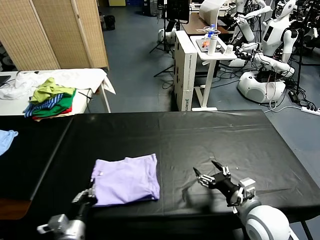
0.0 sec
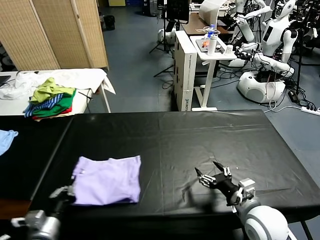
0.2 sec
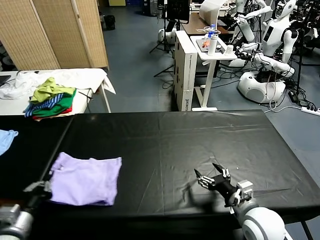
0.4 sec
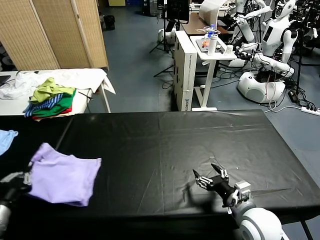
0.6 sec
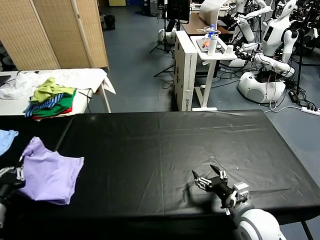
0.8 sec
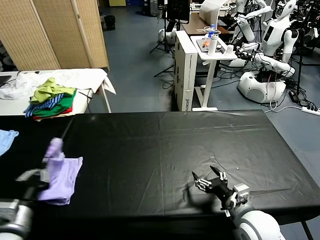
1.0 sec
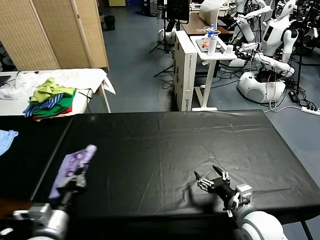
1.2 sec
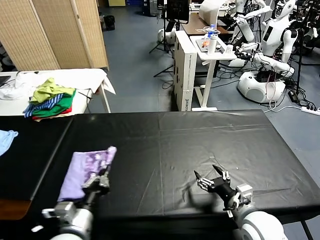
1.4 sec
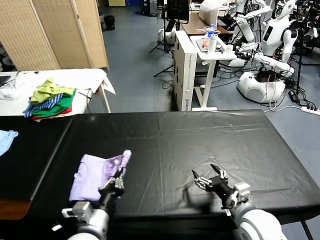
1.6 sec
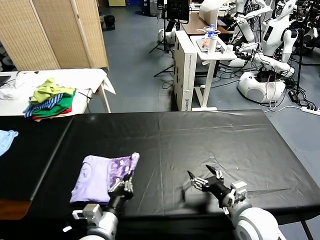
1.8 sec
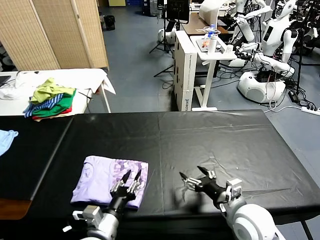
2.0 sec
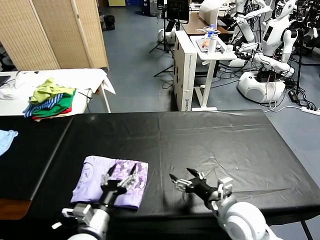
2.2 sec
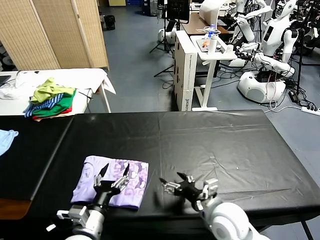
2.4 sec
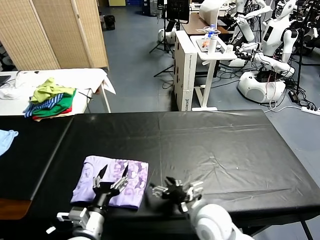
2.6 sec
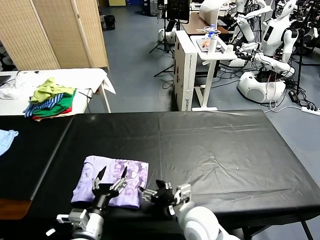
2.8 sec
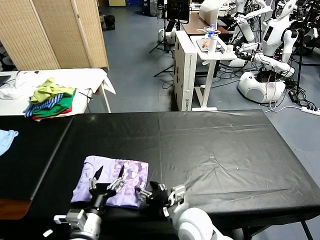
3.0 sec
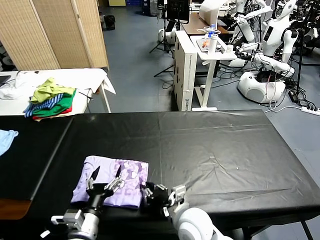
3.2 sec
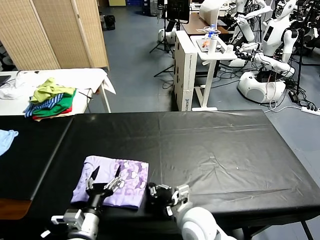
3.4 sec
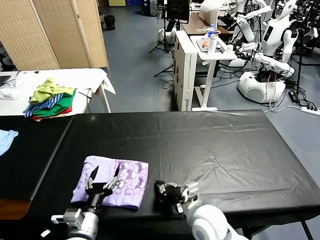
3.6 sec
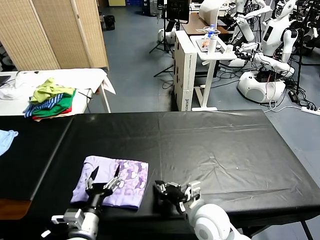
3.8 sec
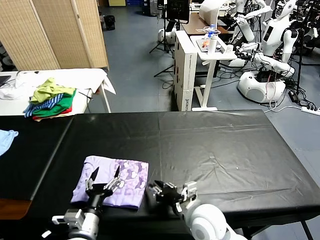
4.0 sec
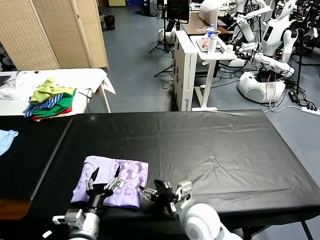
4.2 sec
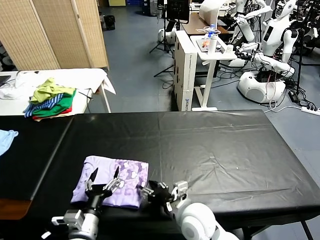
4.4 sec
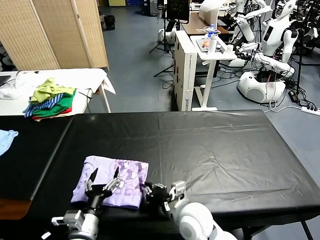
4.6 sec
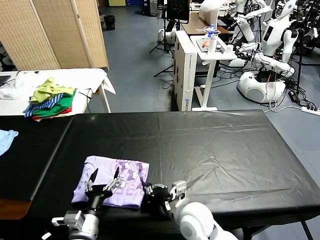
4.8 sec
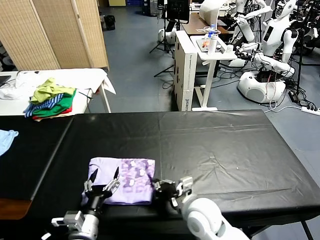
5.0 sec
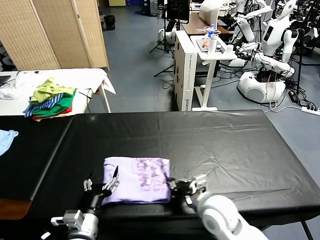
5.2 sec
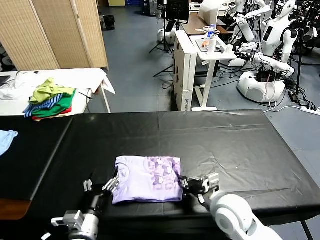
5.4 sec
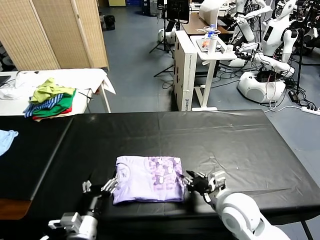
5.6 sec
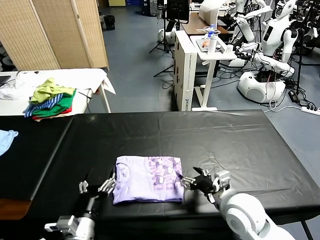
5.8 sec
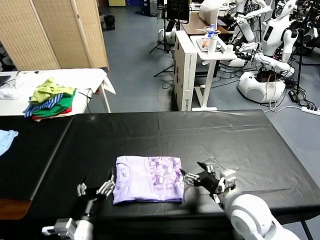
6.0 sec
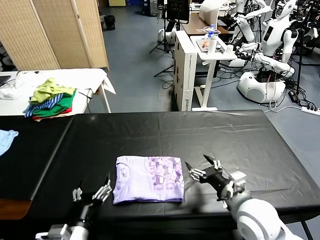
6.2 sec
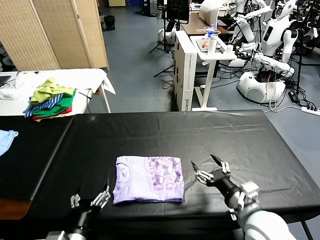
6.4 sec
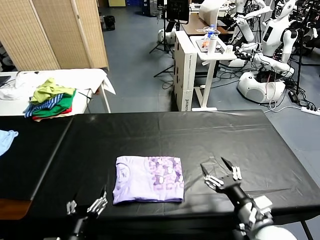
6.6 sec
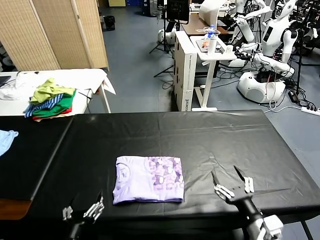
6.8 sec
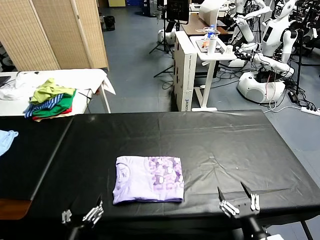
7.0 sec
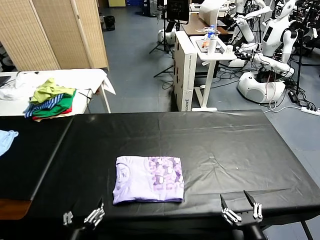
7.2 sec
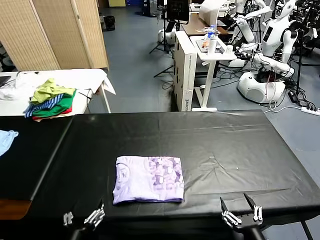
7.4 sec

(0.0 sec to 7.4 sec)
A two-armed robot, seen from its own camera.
Task of the whole recording: fold and organize the clothes.
Step, 0.0 sec - 2.0 sec: Flip the folded clothes over with left gripper.
Step, 2.2 sec - 6.0 sec: Drag the clothes to the center of the table.
0.0 sec - 1.4 sec: The left gripper is displaced upward by roughly 10 cm, and travels to the left and back again, roughly 20 cm each way.
1.4 sec - 3.0 sec: The right gripper is displaced to the left by about 15 cm. Meanwhile the left gripper moves some 5 cm, and opens its fingers.
3.0 sec - 4.4 sec: The right gripper closes, then reopens.
4.4 sec - 6.0 sec: The right gripper travels to the right and upward by approximately 15 cm, and closes and opens again.
6.0 sec - 7.4 sec: The left gripper goes some 5 cm backward. The right gripper shifts roughly 15 cm backward.
